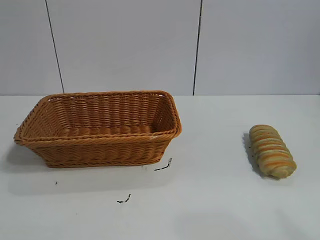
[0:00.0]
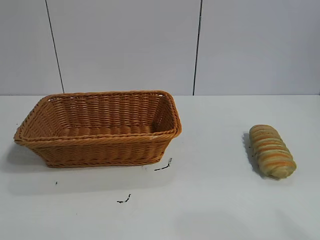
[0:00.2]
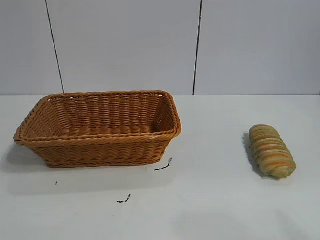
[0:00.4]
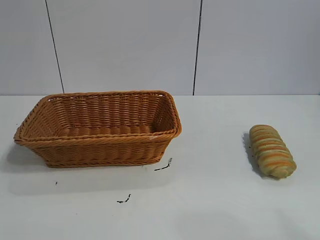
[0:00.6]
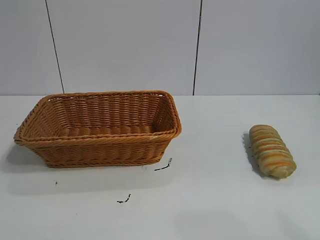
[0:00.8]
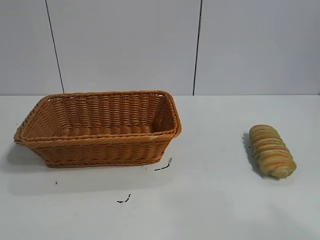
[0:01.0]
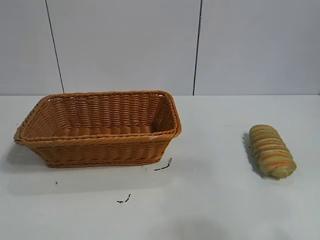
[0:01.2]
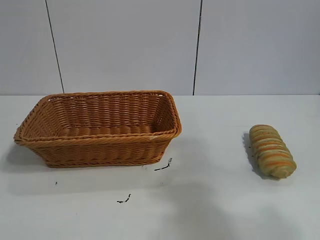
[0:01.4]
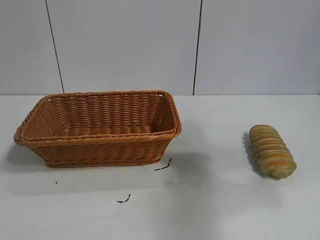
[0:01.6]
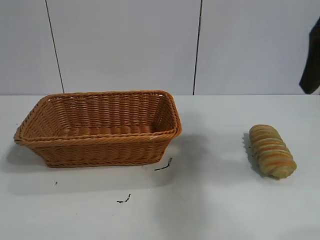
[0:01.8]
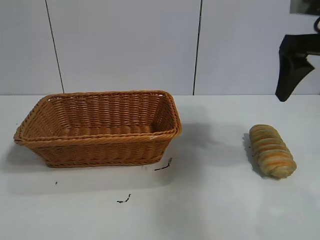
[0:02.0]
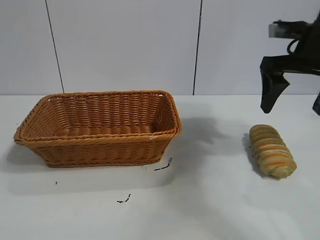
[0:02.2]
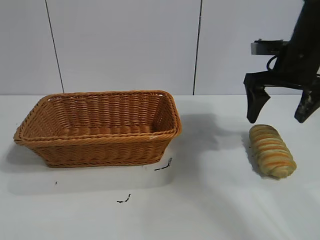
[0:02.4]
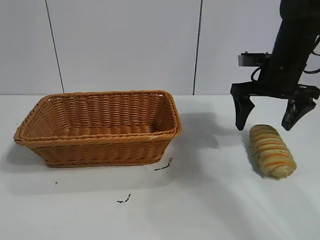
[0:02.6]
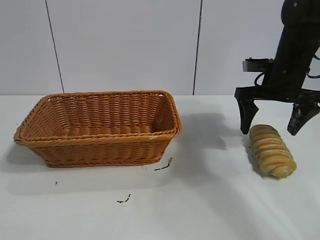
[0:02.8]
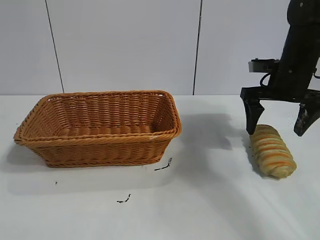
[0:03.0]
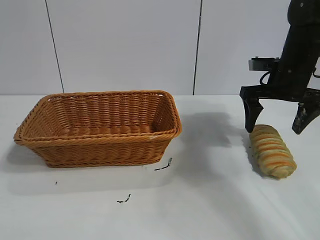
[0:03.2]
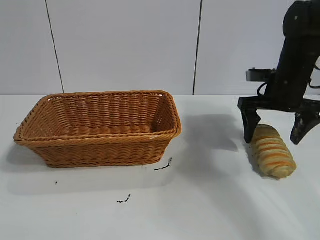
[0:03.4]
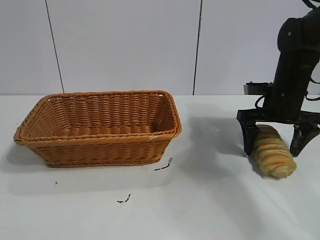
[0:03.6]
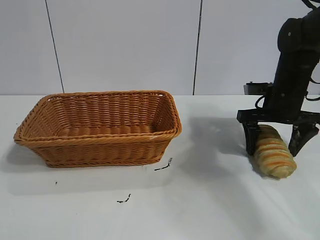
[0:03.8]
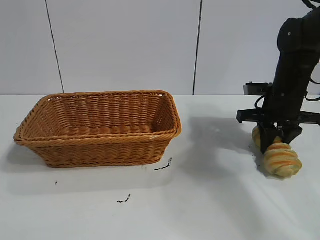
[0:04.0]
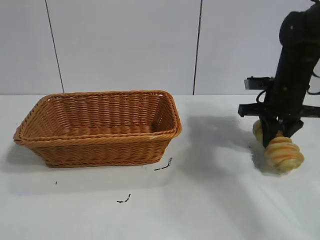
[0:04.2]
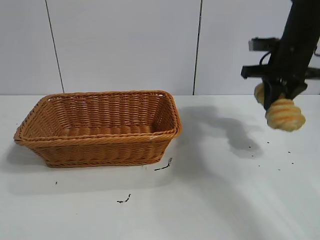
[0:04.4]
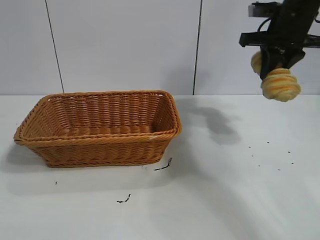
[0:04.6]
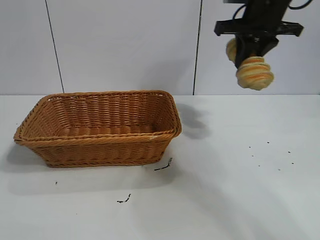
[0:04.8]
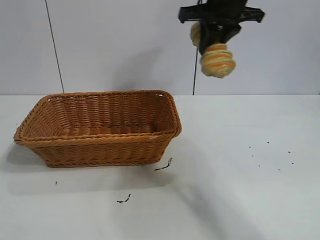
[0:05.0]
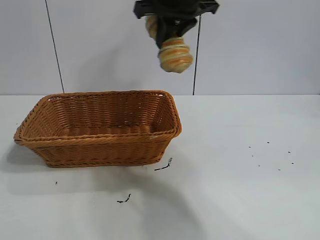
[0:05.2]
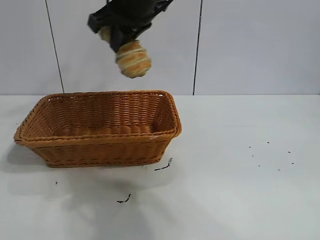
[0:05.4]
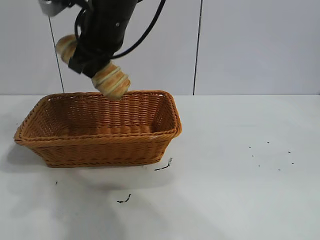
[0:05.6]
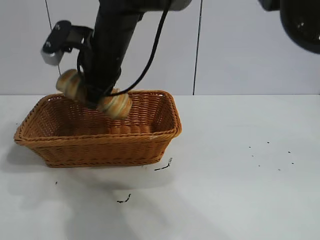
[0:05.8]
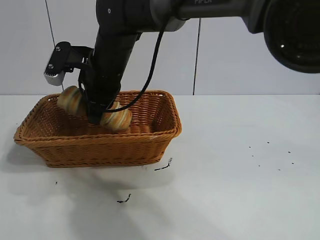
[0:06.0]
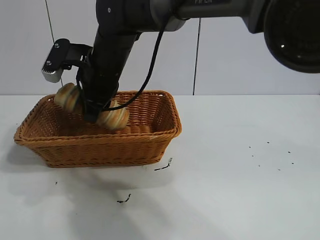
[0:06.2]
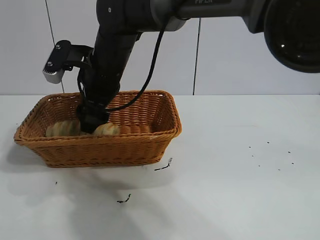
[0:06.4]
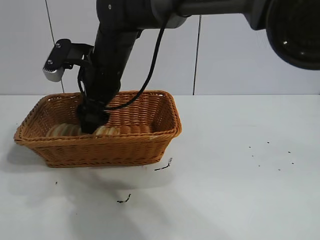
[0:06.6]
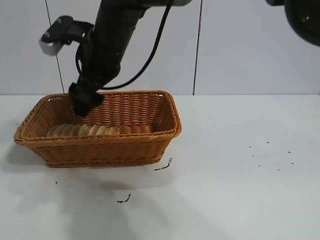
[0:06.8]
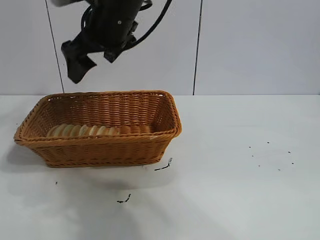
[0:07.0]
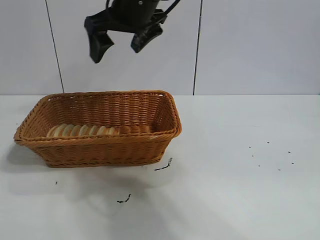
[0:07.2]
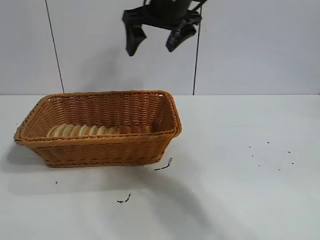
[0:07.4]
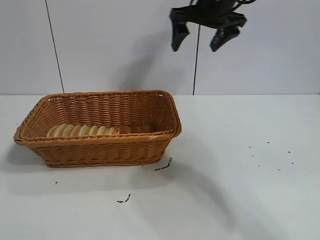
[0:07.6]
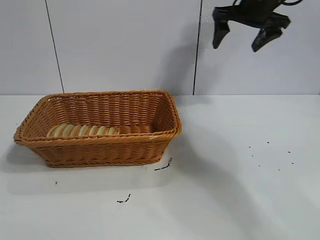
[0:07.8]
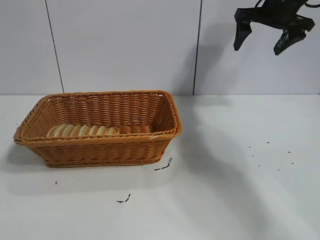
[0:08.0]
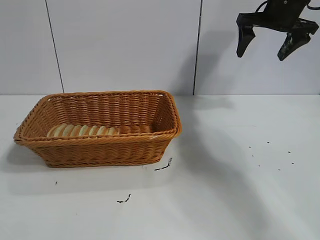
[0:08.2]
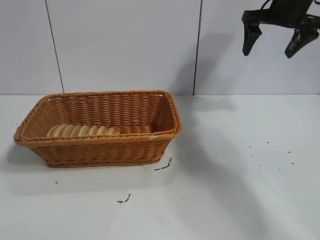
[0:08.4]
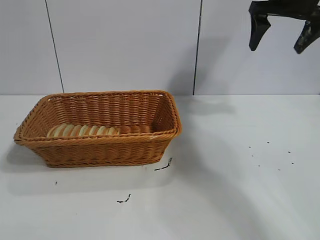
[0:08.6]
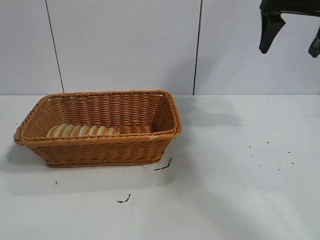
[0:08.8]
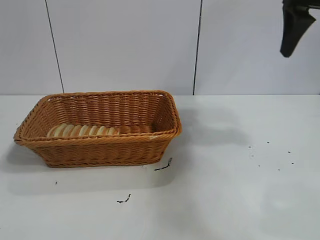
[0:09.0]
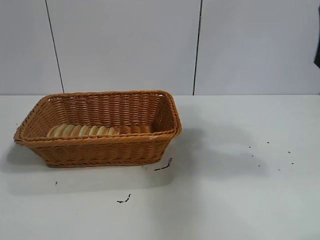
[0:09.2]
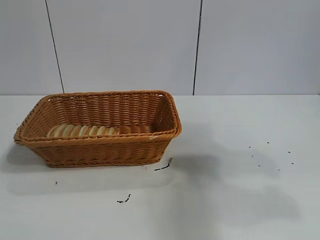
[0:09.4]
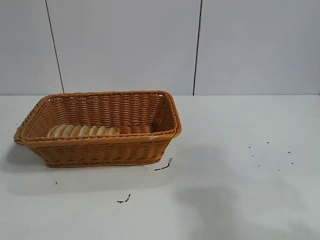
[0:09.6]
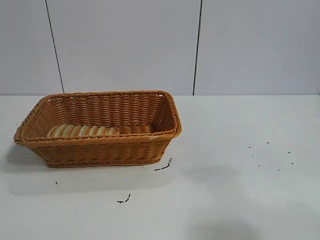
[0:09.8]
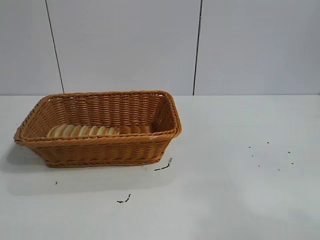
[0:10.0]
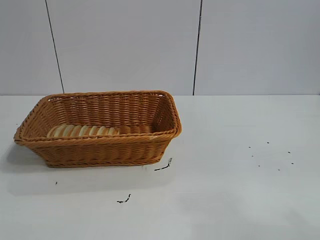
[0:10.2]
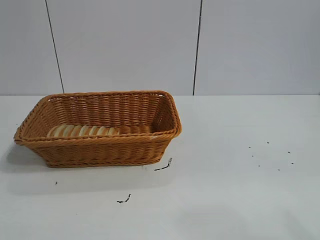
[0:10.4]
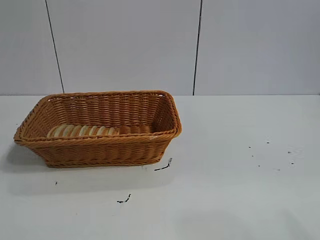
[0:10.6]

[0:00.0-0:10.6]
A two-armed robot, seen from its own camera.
Task of the whole recording: pick up the long bread and put it into the basket.
Step, 0:01.8 to 0:04.0: Grasp the long bread with right gripper.
Step, 0:04.2 to 0:06.8: Place the long bread in the basket with right gripper.
